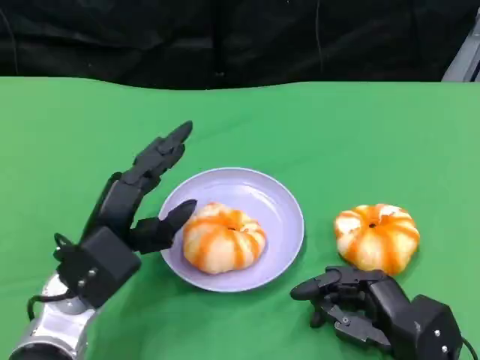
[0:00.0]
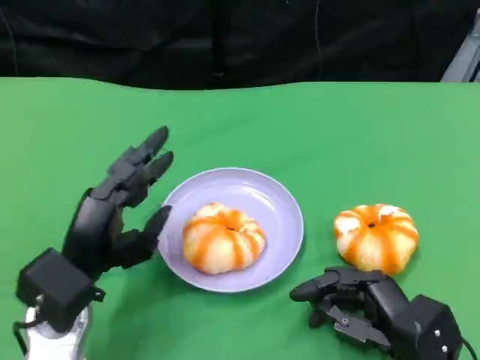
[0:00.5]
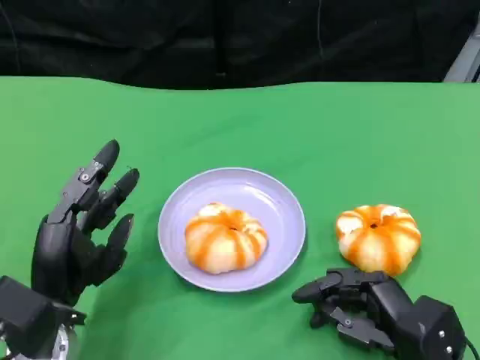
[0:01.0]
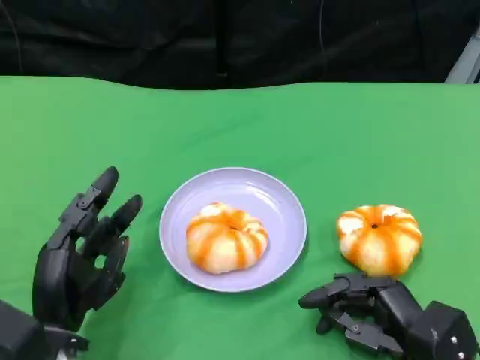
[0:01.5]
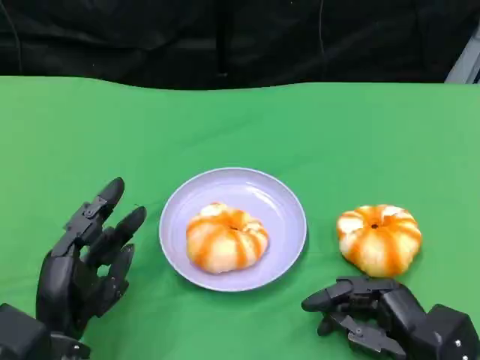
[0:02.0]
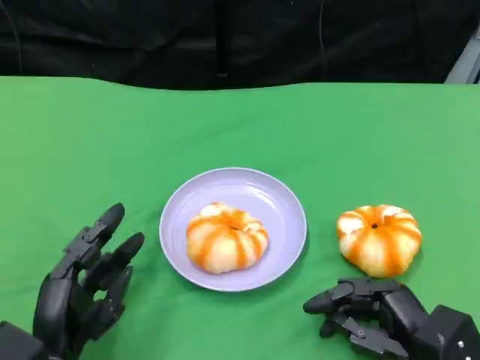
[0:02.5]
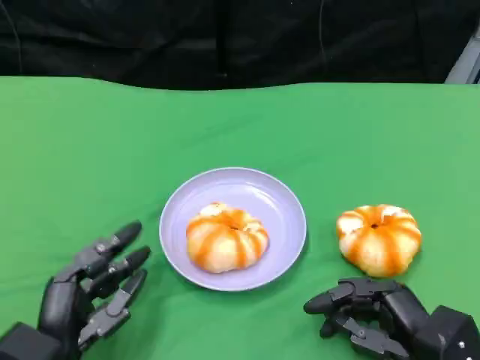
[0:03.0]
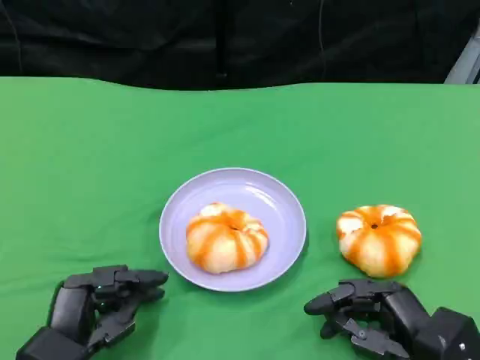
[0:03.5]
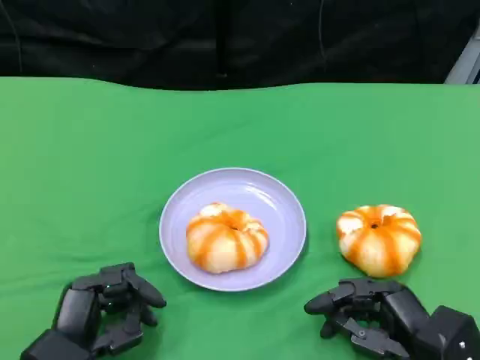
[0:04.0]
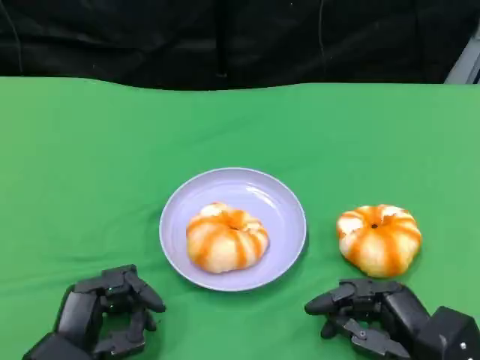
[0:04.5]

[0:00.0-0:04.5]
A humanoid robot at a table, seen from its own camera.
Task of the whole recording: Grasp the bread from the table and place it into the plate.
0:00.0 to 0:02.0: The left hand travels backward and downward by about 10 cm.
0:02.0 to 0:04.5: The hands make only small movements.

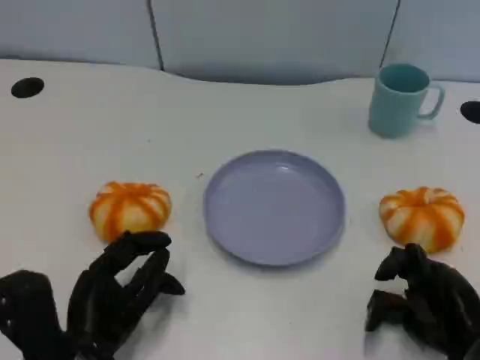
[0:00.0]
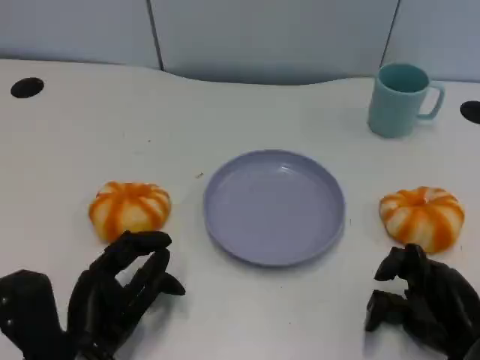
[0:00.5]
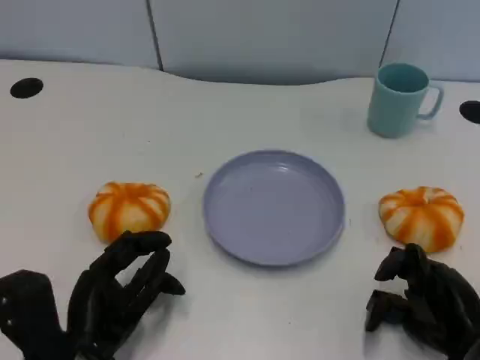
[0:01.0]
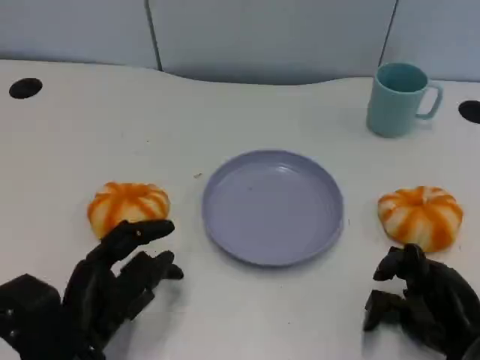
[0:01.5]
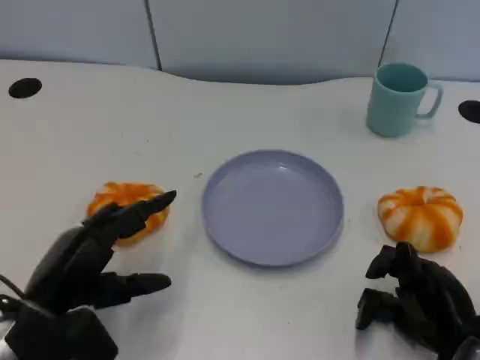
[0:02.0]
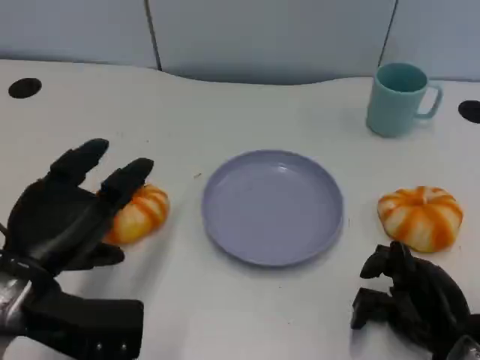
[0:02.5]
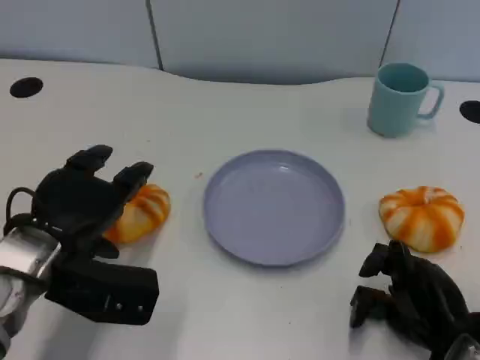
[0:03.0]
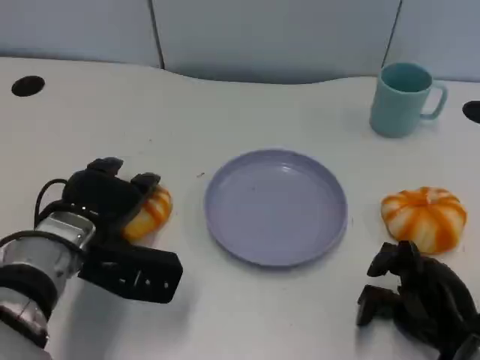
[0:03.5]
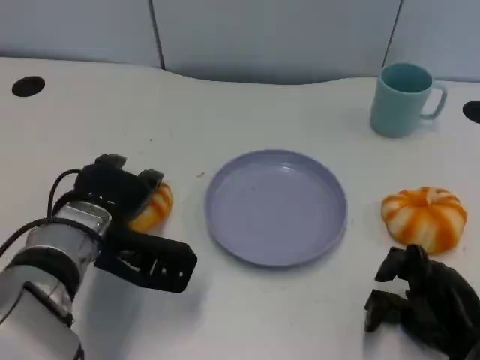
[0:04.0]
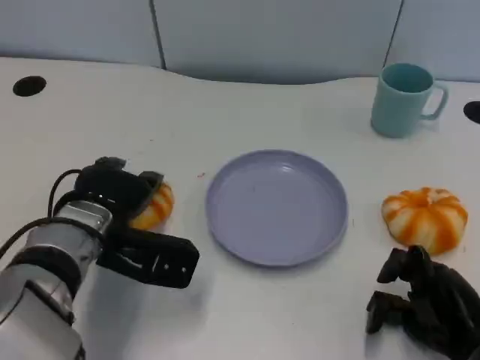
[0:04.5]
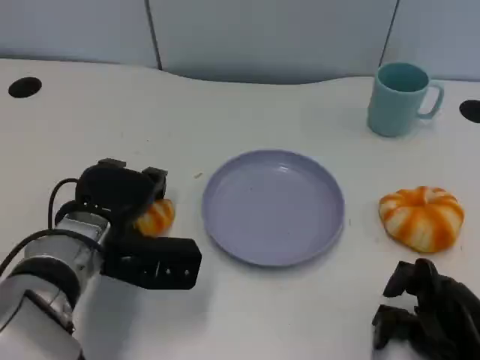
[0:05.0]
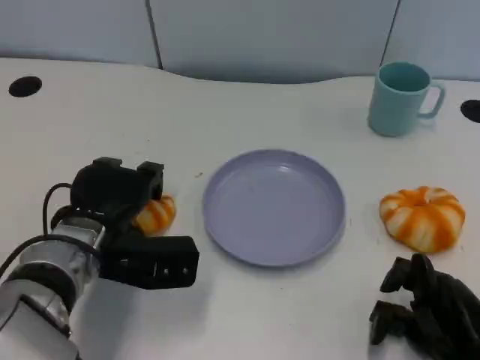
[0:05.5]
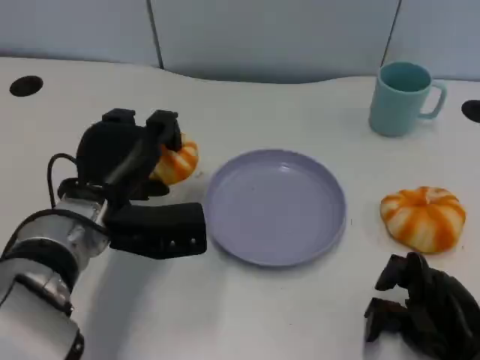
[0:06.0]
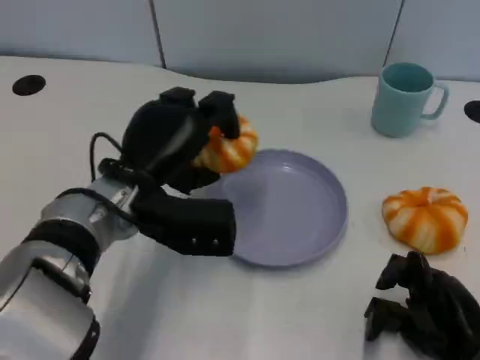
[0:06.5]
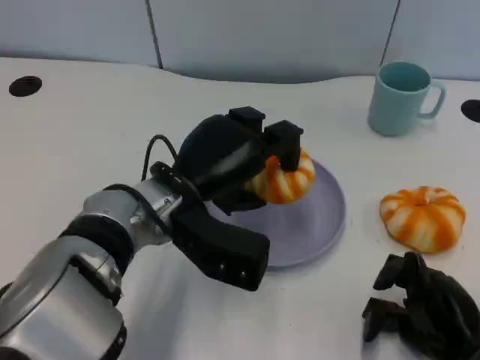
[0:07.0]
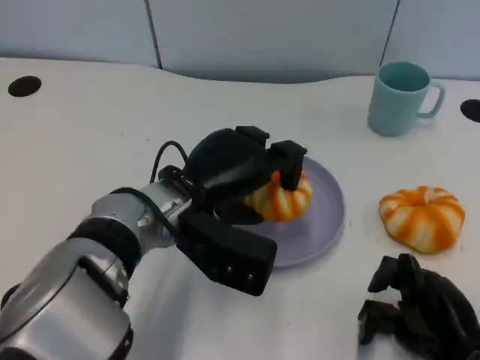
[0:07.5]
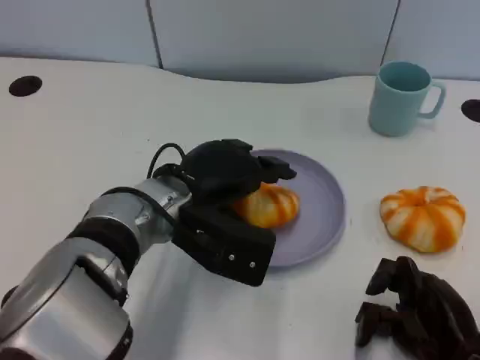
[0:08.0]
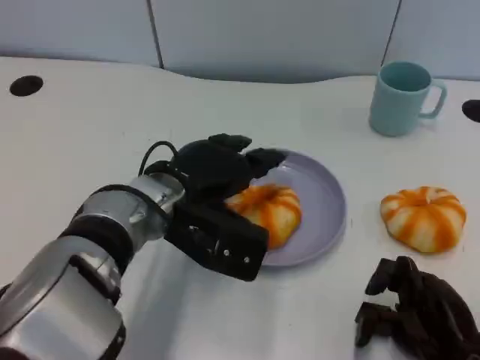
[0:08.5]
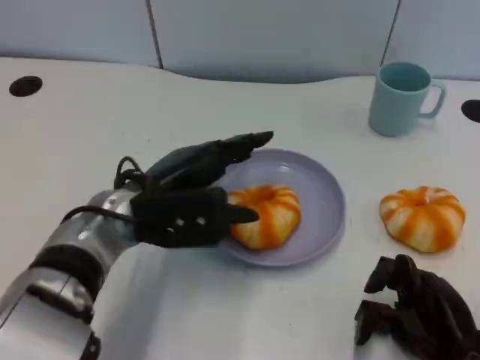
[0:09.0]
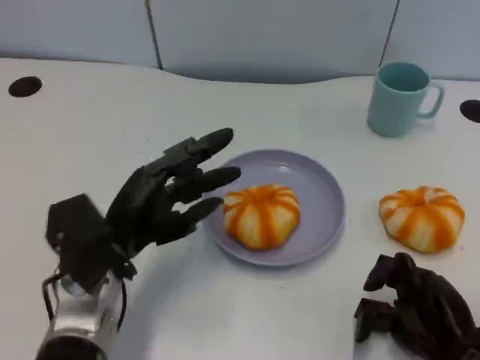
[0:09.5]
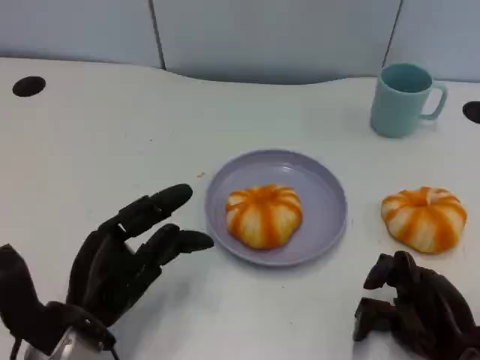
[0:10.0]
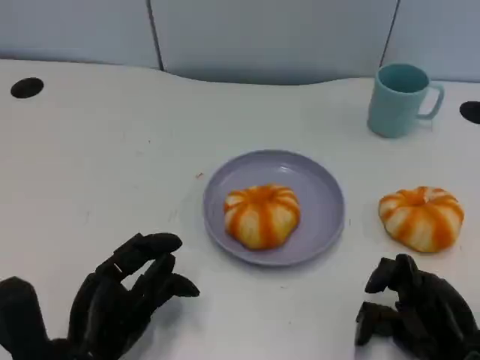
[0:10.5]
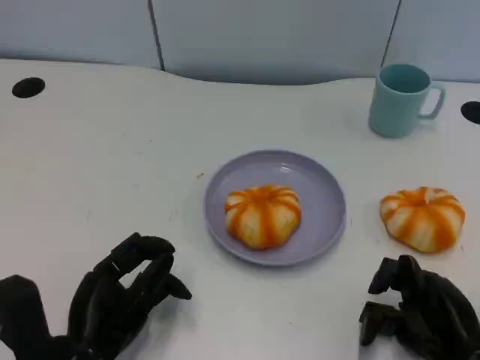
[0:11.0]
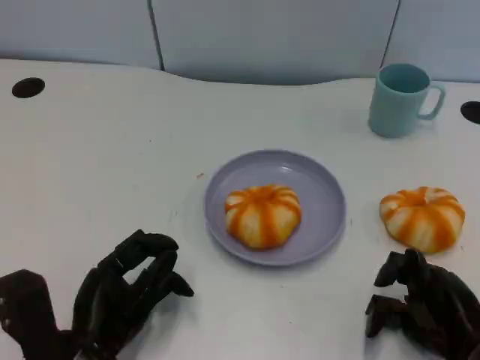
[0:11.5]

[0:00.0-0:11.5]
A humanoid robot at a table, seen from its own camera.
Task of the whole recording: Grasp the bread from the table and place it into the plate.
0:00.0 to 0:02.0: The left hand ends up about 5 cm from where it was.
0:02.0 to 0:04.0: The left hand shifts roughly 10 cm forward and to the right.
0:06.0 to 0:07.5: The left hand travels to the right by approximately 10 cm.
0:07.5 to 0:09.5: The left hand goes approximately 10 cm to the left.
0:09.5 to 0:11.5: The left hand shifts roughly 5 cm backward.

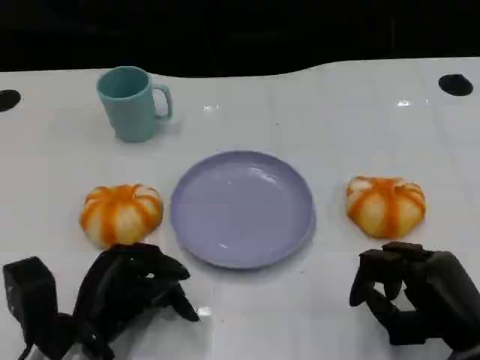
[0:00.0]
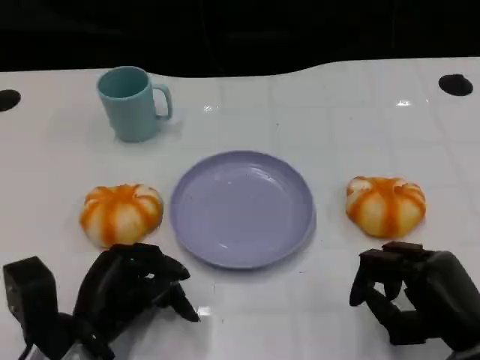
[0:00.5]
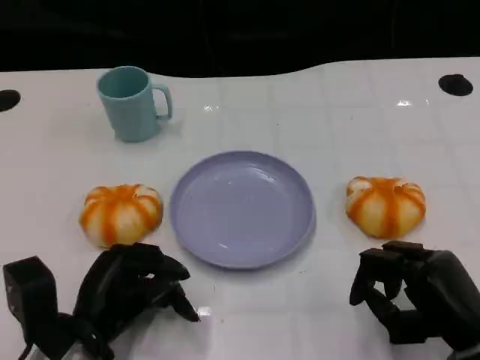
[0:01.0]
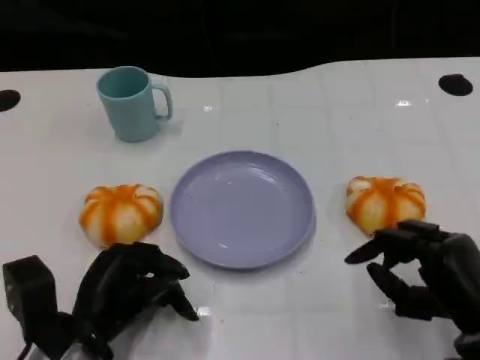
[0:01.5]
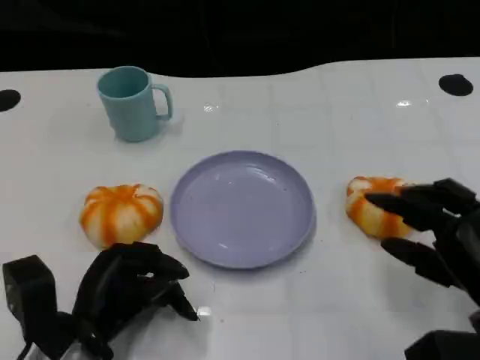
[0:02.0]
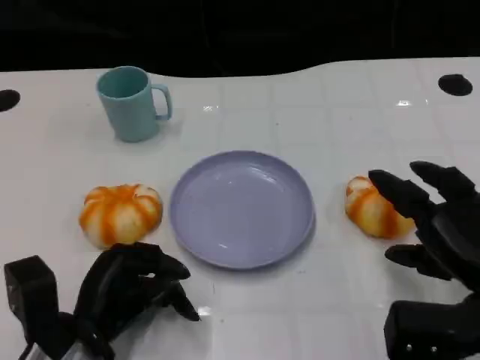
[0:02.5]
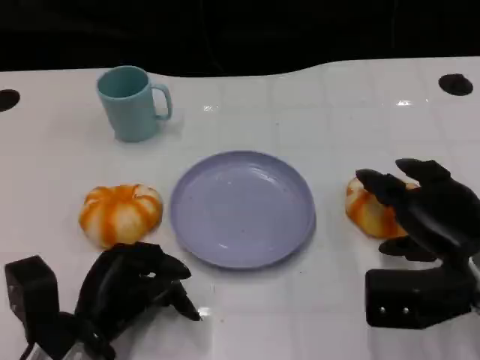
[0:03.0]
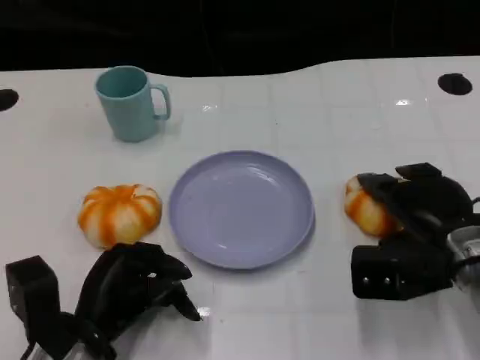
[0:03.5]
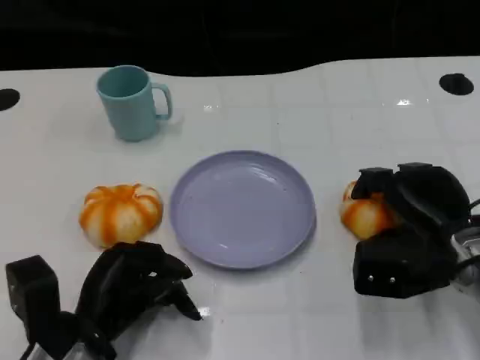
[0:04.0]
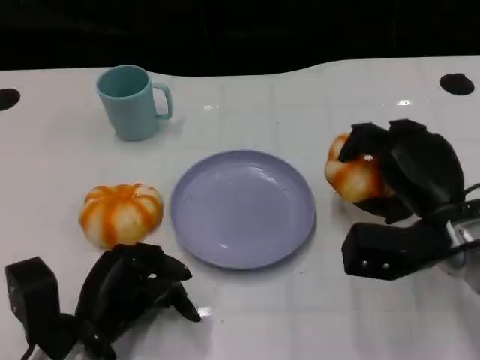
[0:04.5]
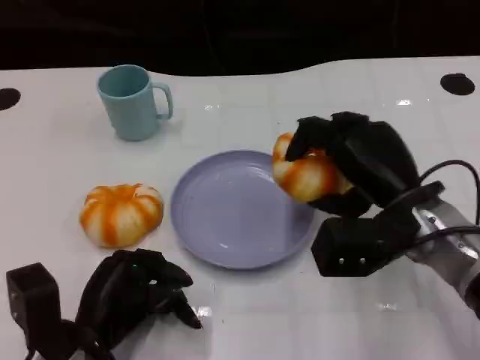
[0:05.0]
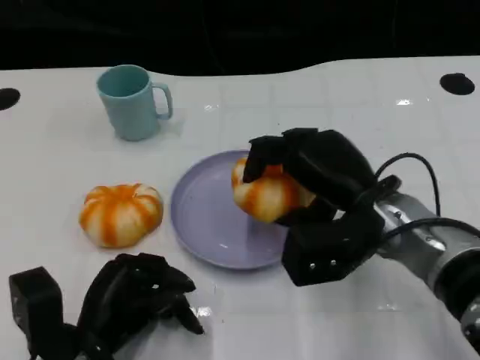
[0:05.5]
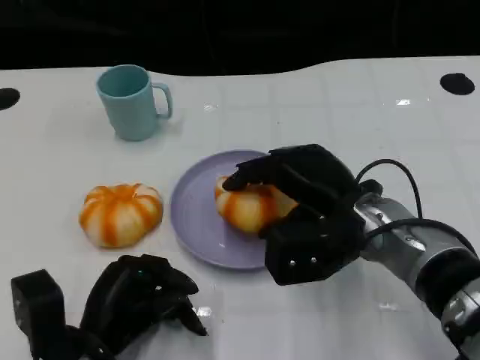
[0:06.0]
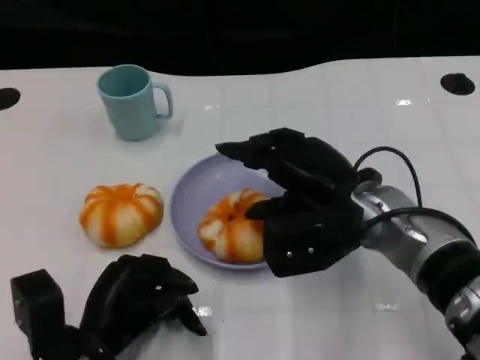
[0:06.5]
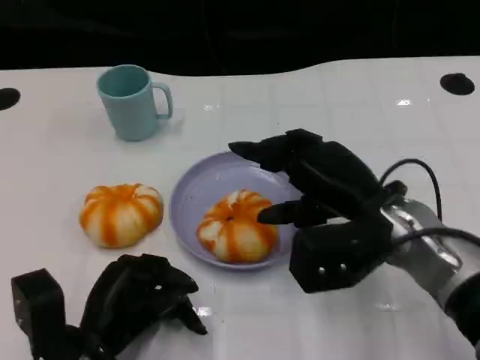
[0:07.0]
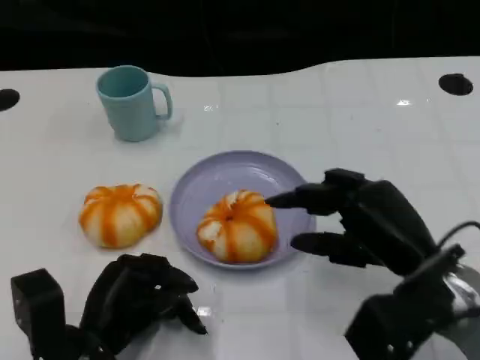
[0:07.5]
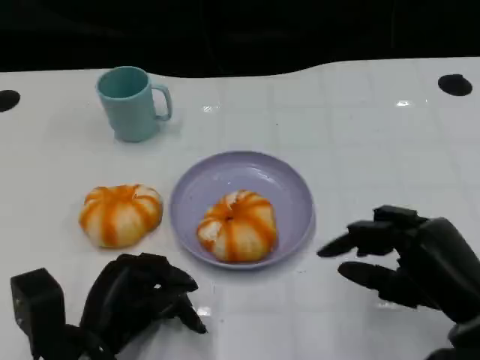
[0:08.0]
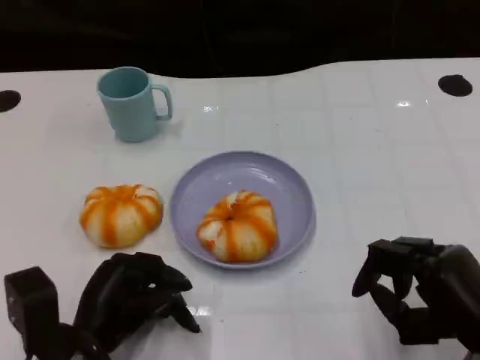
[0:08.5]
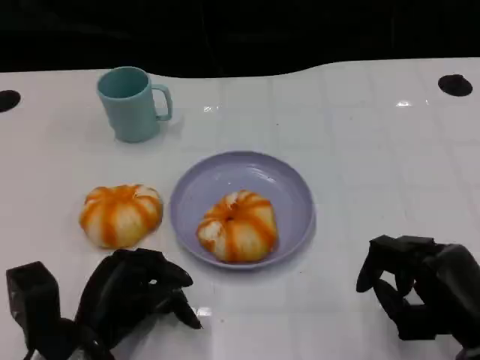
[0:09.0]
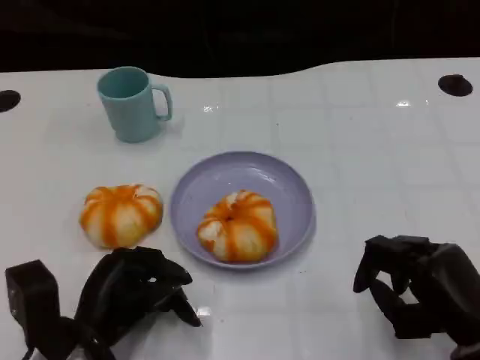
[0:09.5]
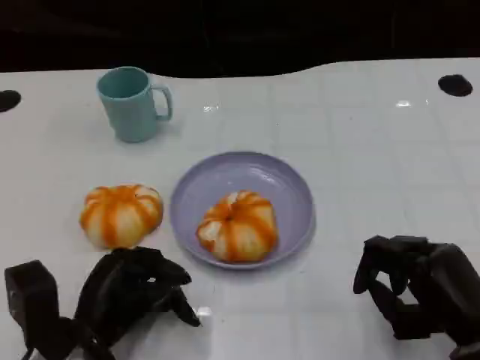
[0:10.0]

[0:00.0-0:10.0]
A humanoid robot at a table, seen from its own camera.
Task of the whole recording: Grasp the bread from the table and place it into the plate.
0:02.0 to 0:04.0: The right hand shifts roughly 10 cm forward.
0:04.0 to 0:06.0: The right hand goes some 10 cm to the left.
0:06.0 to 0:08.0: The right hand moves to the right and backward, some 15 cm.
0:08.0 to 0:10.0: The hands move only a little.
